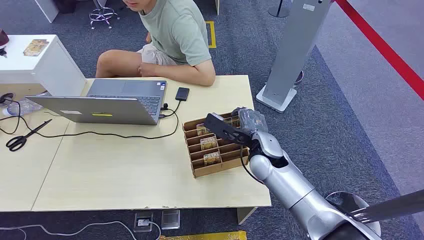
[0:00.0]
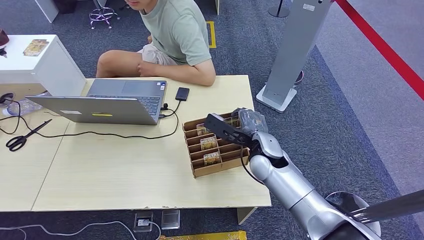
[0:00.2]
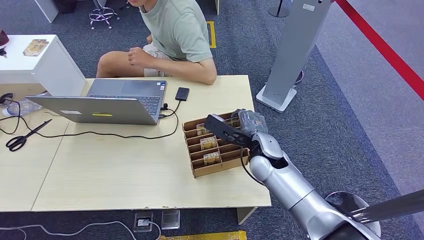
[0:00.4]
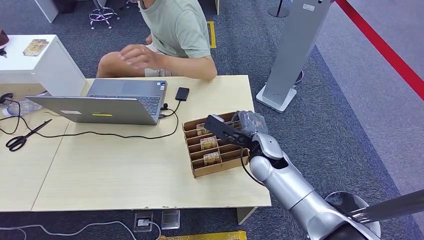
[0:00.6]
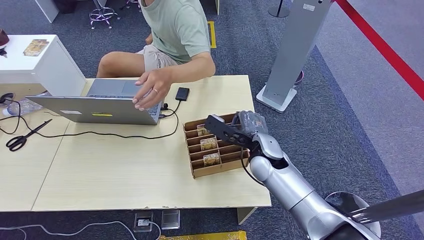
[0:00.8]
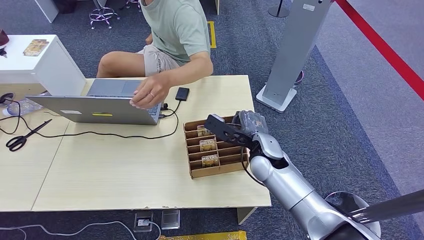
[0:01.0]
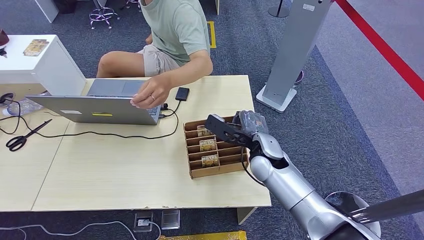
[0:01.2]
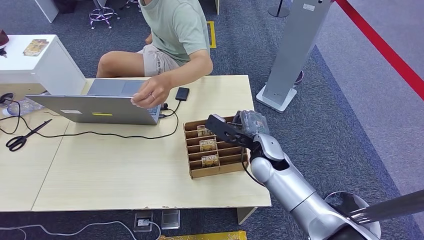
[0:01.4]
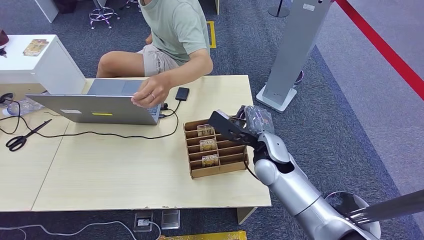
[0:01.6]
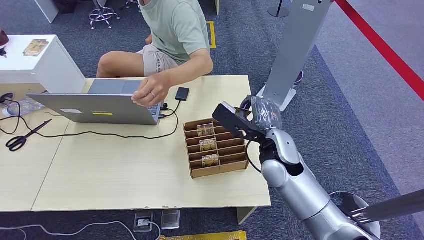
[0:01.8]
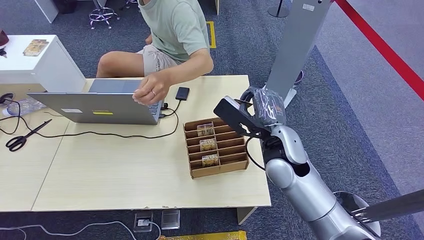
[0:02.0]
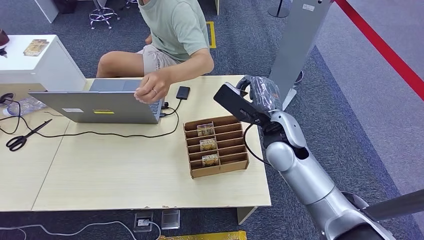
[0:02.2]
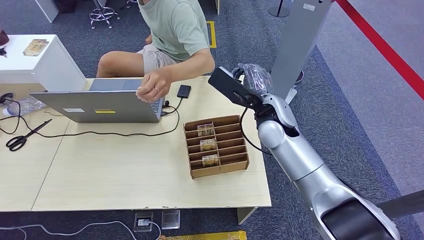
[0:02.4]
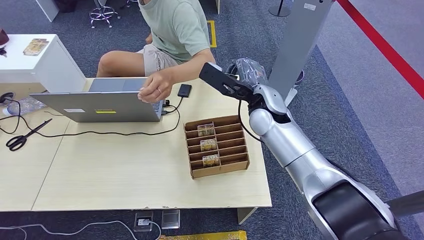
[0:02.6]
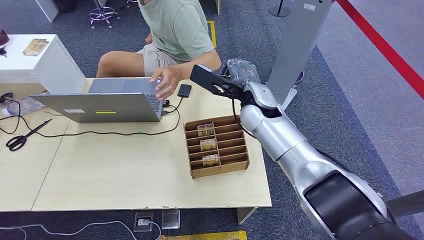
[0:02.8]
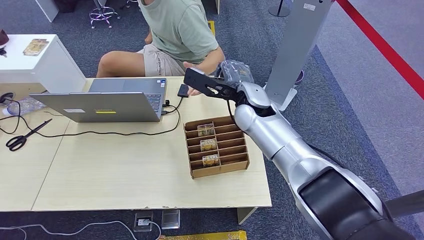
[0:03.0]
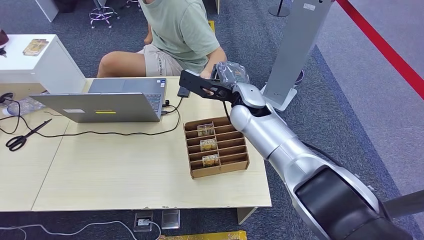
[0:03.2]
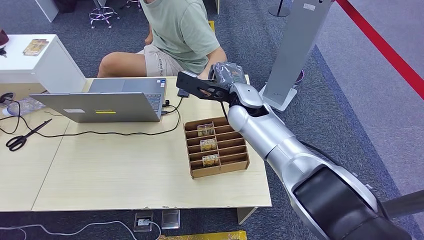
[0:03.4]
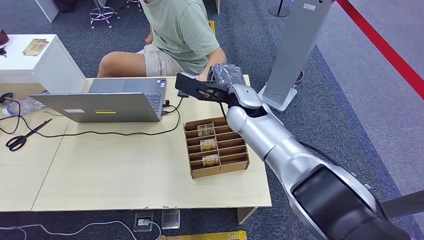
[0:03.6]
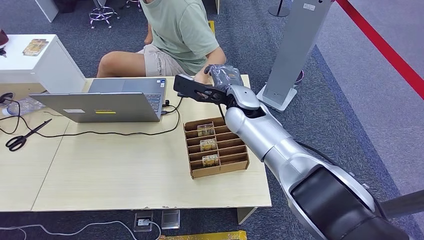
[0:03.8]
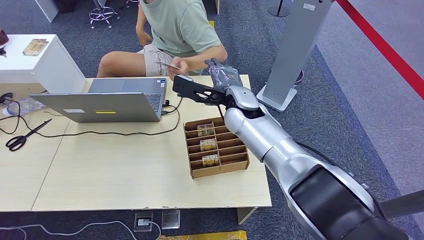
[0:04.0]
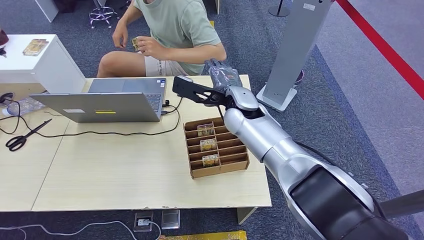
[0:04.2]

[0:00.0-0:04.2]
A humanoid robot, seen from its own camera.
Step, 0:00.0 to 0:01.8: Pick up the key card from the card box.
Step, 0:03.2 to 0:04.2: Hand the key card to the target.
0:01.4 to 0:02.8: The right hand travels upward and forward by some 15 cm.
0:02.8 to 0:04.2: The hands move only a little.
